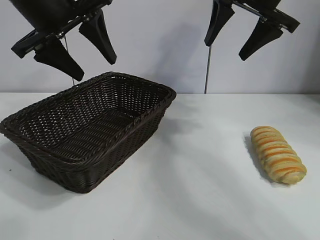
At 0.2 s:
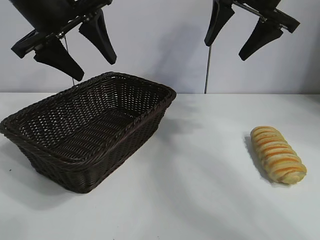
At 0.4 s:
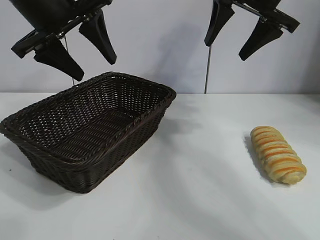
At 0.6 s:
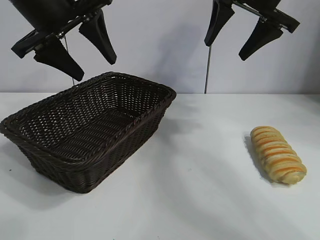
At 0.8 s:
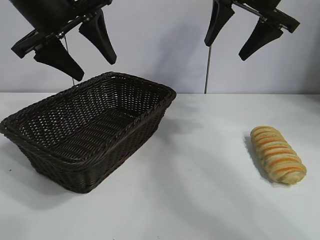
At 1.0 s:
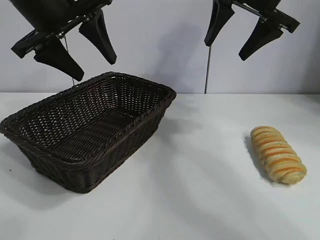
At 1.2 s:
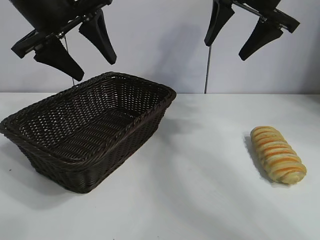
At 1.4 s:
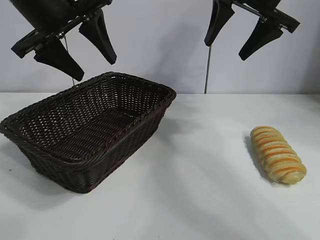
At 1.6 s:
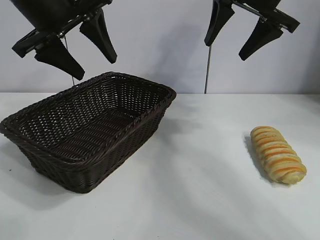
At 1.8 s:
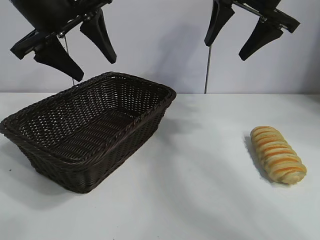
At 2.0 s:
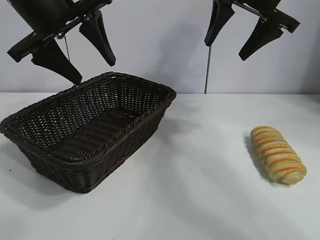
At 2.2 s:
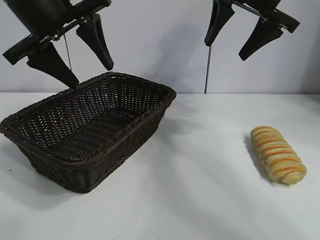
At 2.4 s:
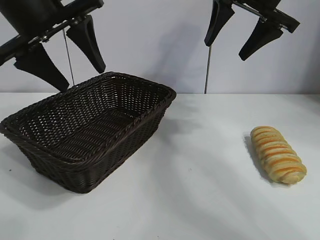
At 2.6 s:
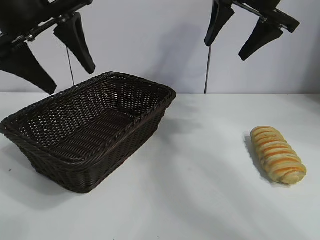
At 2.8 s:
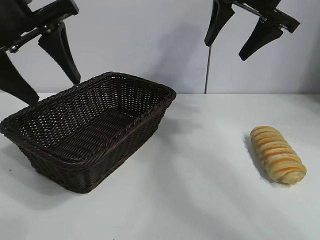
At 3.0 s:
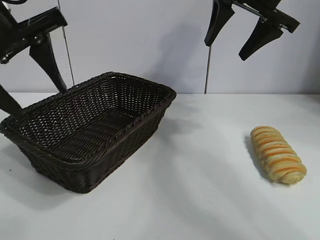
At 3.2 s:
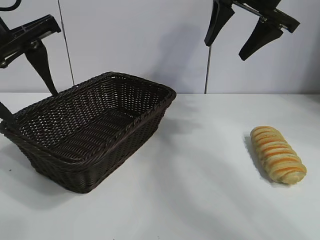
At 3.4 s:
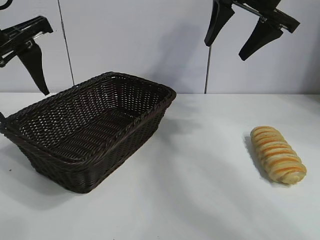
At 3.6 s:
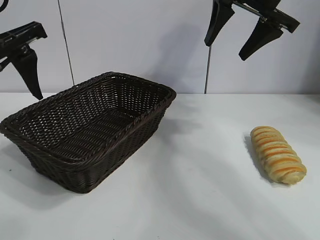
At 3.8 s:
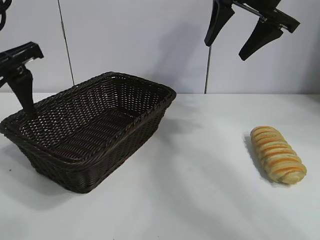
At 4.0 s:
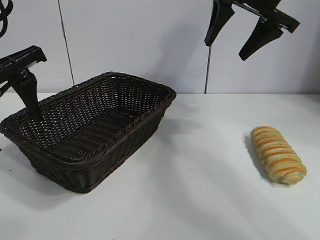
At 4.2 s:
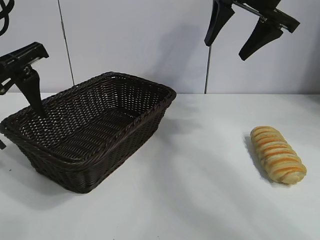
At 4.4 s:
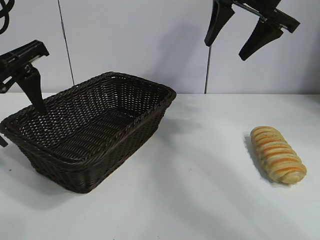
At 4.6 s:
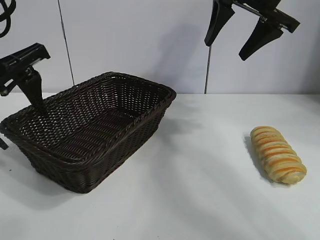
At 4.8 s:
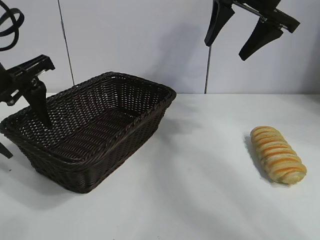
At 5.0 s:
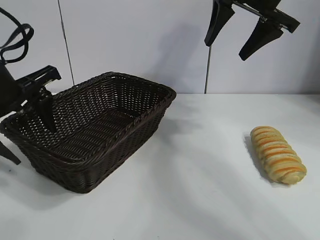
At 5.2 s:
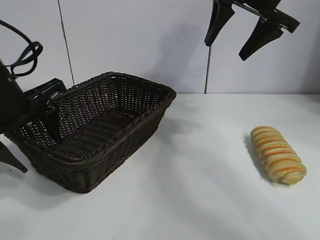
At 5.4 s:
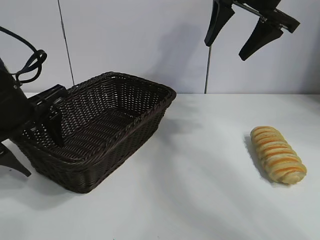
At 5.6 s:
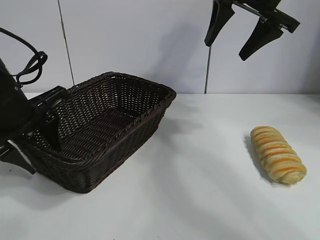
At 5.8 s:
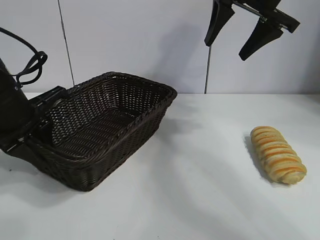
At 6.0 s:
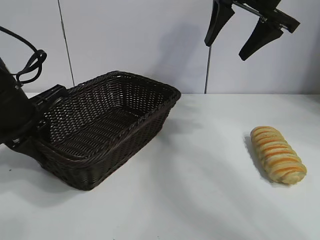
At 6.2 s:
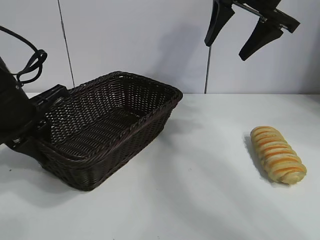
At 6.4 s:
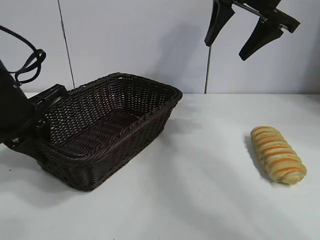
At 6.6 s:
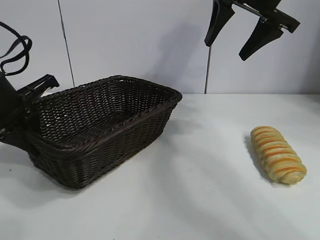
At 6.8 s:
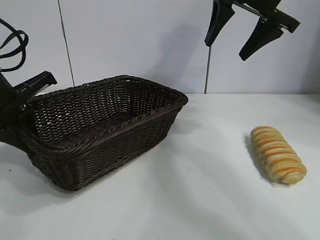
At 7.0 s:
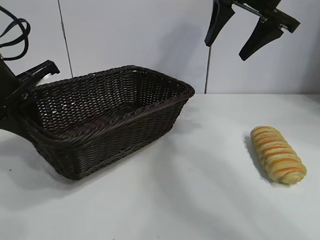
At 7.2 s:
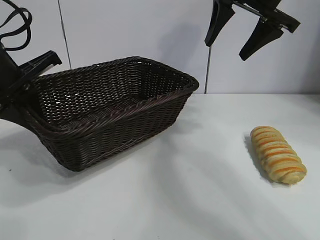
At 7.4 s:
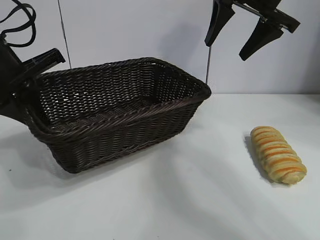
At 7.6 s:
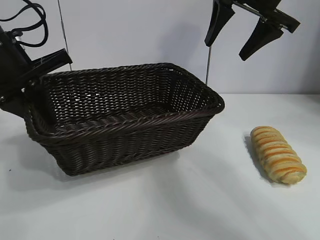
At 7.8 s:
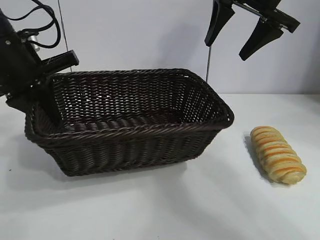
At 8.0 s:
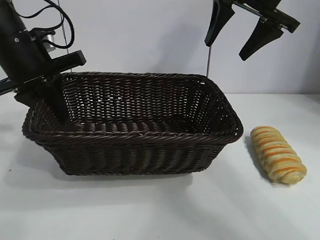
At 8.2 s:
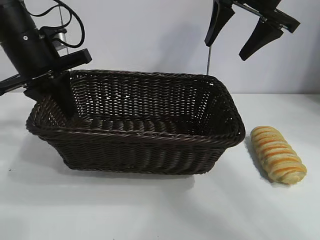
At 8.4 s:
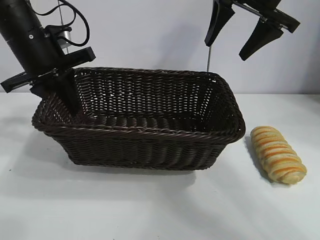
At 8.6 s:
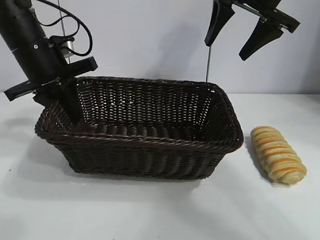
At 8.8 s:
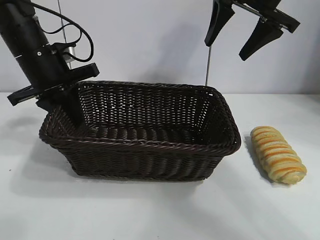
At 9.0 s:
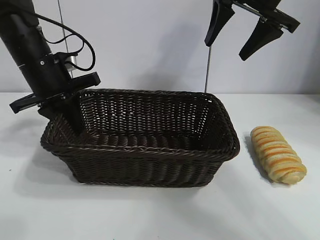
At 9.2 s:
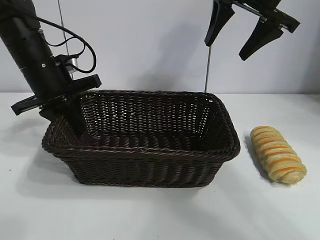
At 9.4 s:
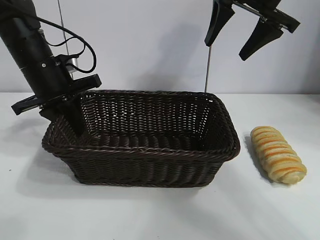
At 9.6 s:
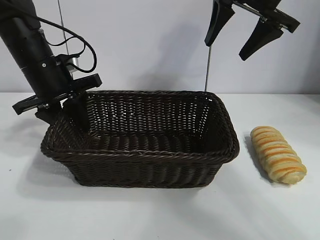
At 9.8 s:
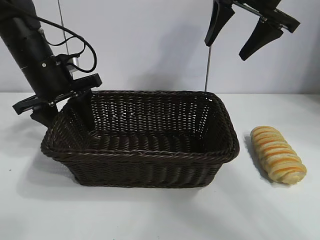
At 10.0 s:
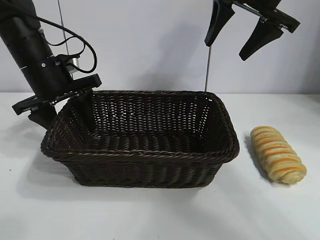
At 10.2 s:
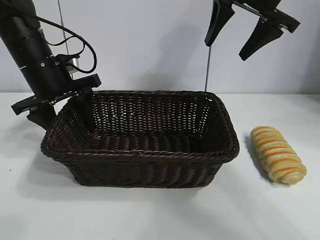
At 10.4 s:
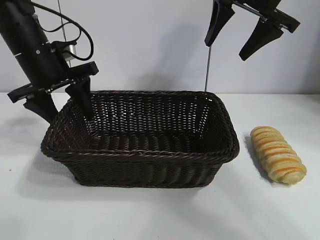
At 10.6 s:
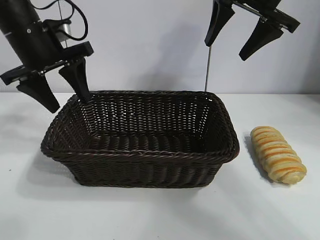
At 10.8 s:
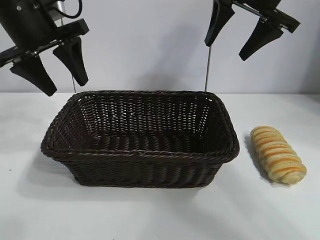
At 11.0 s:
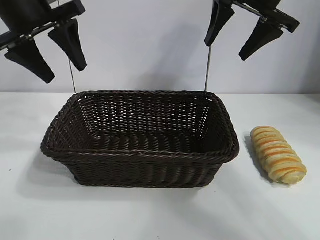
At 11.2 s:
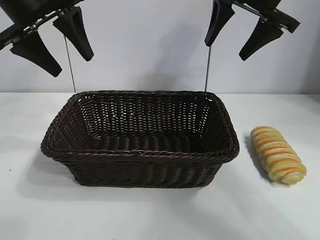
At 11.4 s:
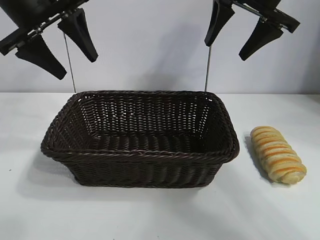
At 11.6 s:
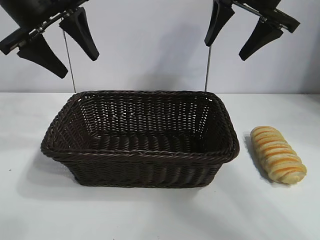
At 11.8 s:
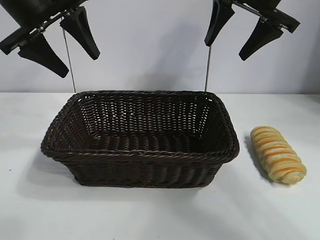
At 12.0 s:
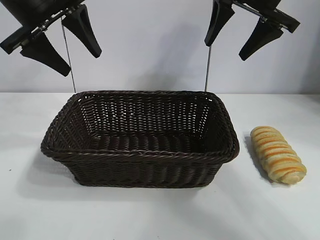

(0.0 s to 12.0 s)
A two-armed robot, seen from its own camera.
Task of the whole recording: pick up the long bread and put it into the basket.
Step, 1.6 s - 6.2 s: Grasp the basket with the left gripper.
Step, 6.4 s - 10.0 s: Place the basket in the center of the table with the left gripper.

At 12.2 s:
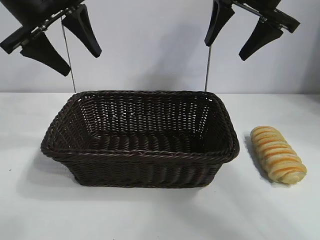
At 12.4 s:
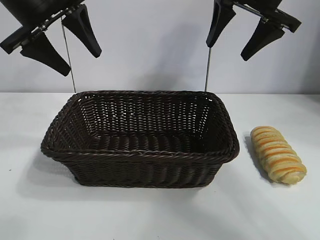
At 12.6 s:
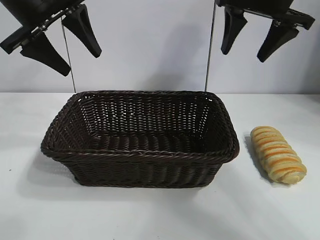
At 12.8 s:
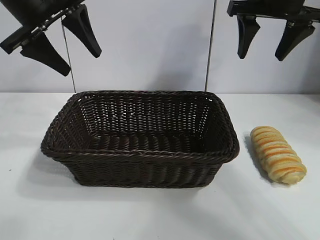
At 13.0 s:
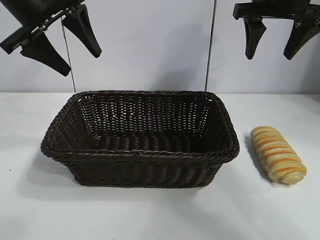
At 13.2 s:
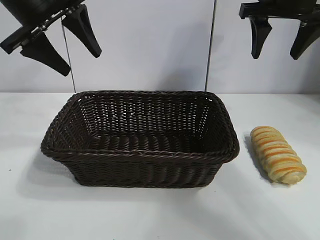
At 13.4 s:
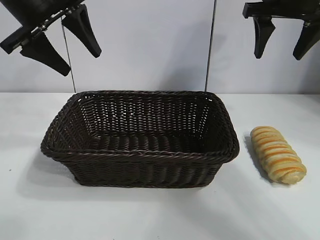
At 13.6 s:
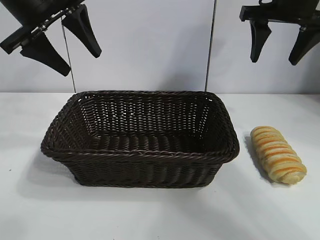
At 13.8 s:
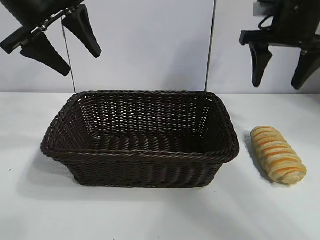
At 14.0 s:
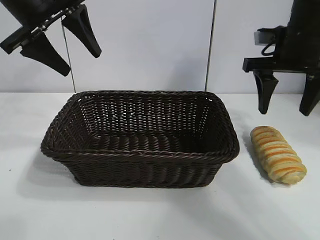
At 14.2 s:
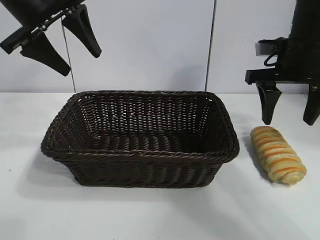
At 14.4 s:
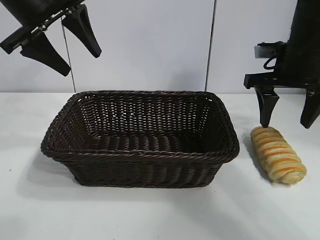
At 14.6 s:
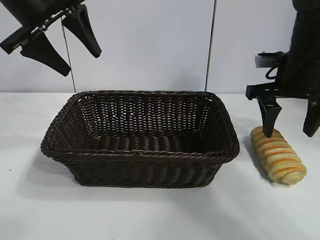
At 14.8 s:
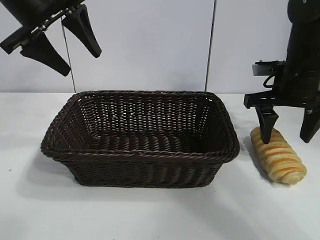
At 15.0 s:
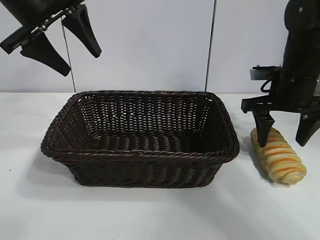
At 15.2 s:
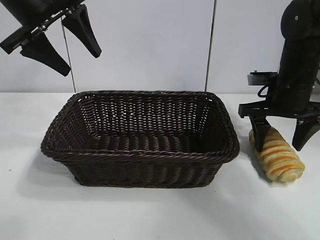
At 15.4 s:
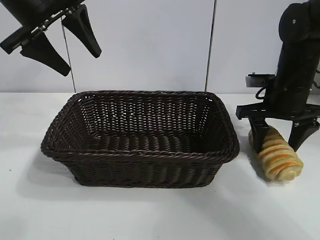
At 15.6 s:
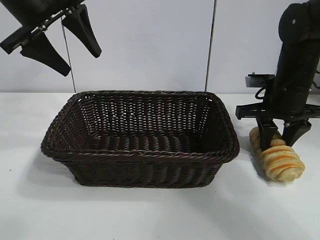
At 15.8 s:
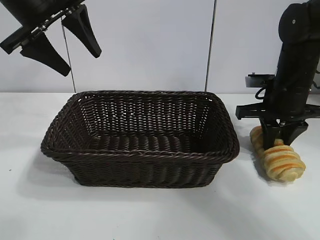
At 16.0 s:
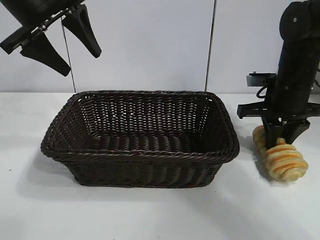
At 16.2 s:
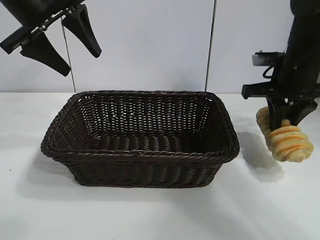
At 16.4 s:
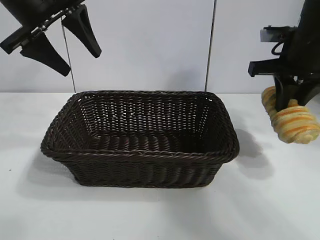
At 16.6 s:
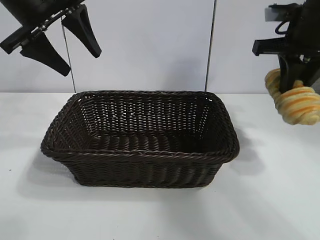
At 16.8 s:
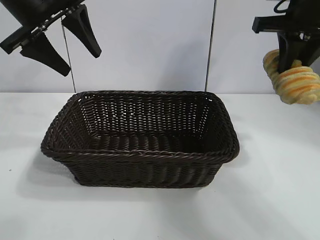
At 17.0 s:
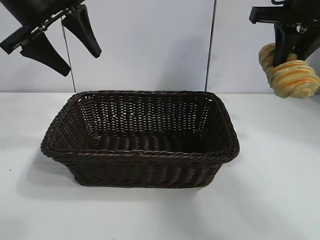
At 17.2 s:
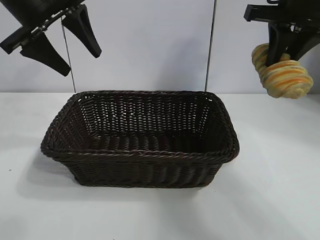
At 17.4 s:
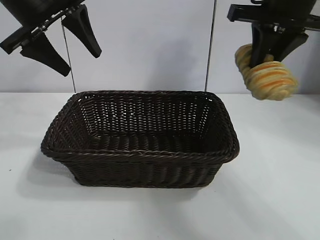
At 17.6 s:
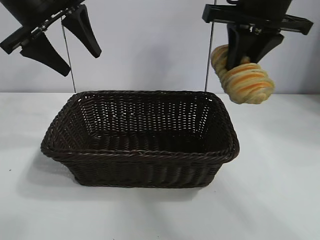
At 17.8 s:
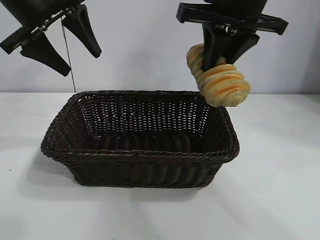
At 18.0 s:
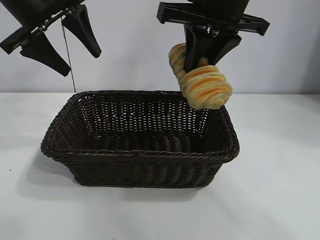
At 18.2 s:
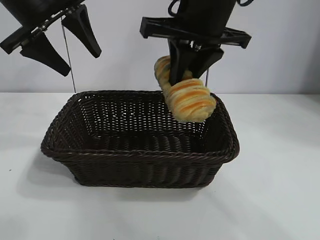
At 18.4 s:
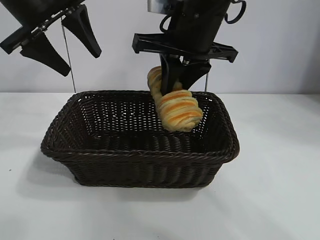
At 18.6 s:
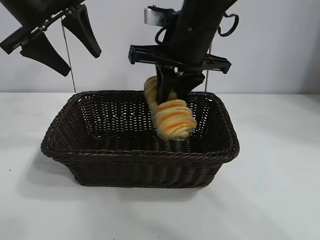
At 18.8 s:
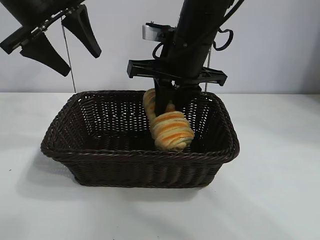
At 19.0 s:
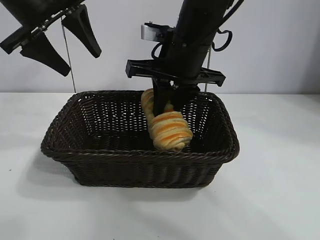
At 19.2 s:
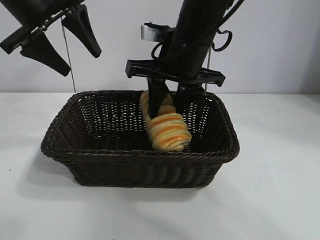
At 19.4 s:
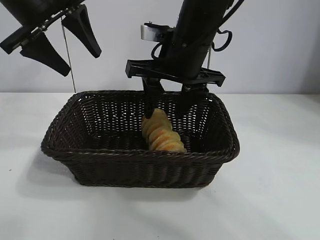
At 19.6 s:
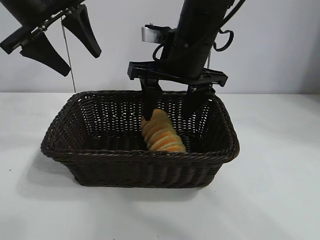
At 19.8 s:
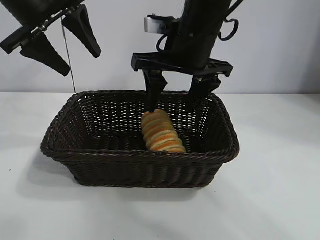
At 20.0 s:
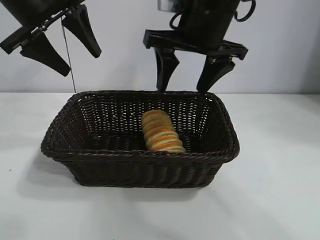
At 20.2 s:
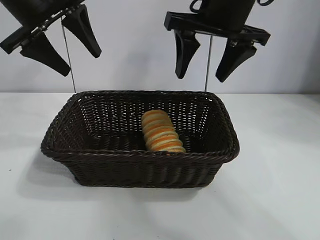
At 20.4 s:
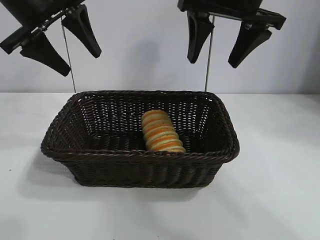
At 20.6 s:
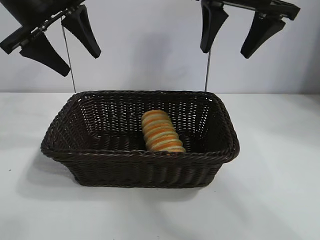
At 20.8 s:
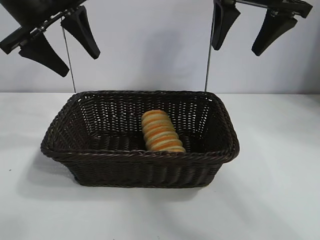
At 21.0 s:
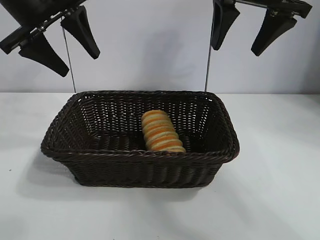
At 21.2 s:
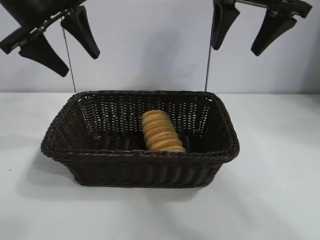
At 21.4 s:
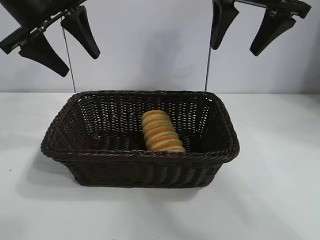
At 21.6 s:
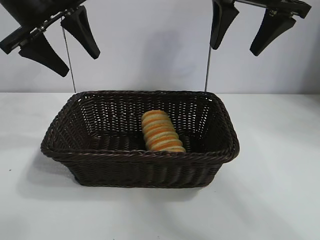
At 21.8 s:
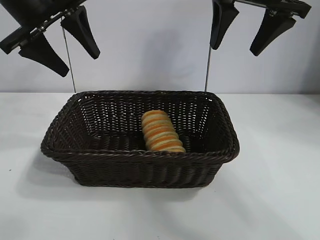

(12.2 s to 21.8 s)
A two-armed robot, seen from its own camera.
Task of the whole recording: pick up the long bread and put it into the basket.
Step, 12.2 s - 15.8 s: Grasp the long bread with right gripper.
Step, 16.0 s - 19.8 s: Place the long bread in the basket with right gripper.
